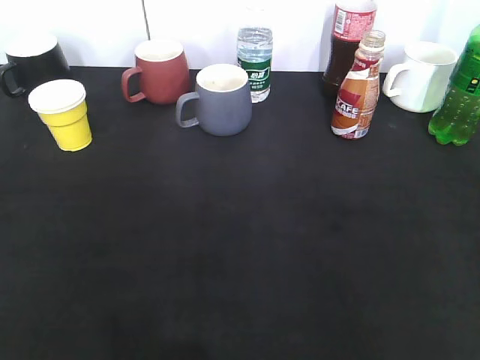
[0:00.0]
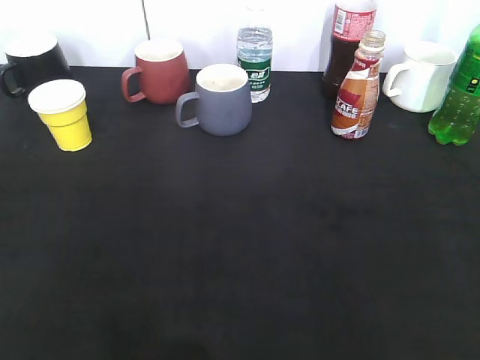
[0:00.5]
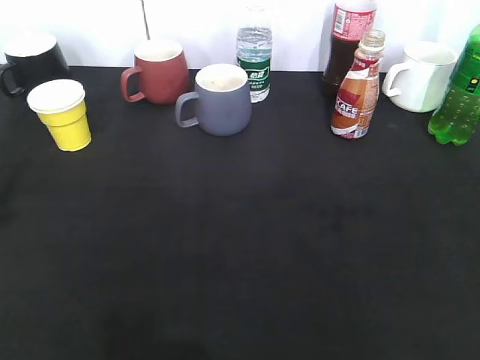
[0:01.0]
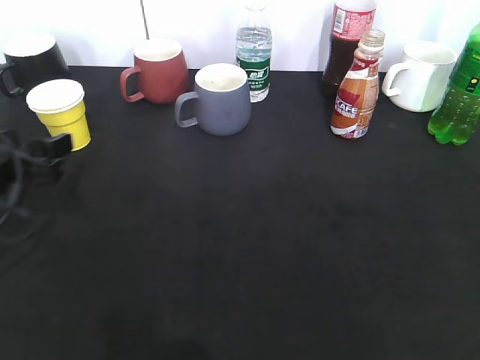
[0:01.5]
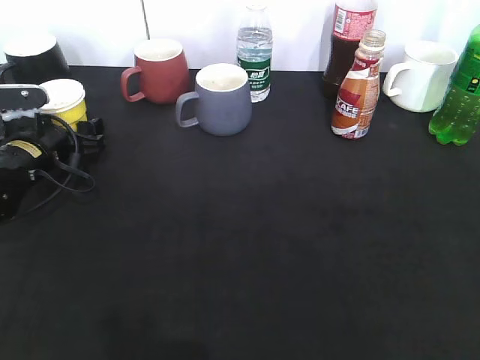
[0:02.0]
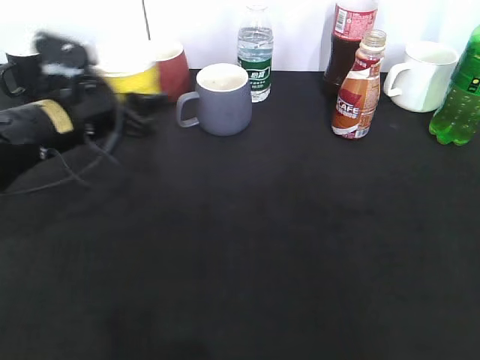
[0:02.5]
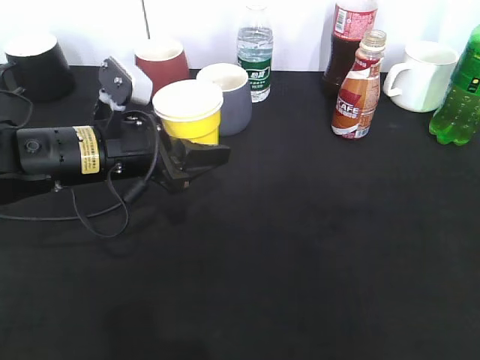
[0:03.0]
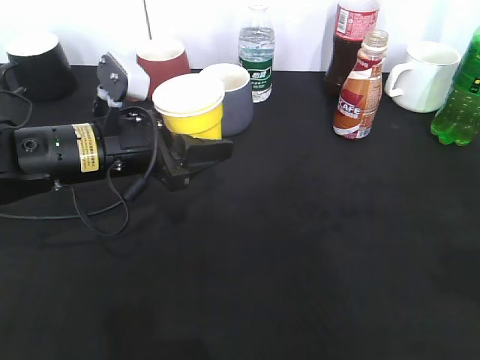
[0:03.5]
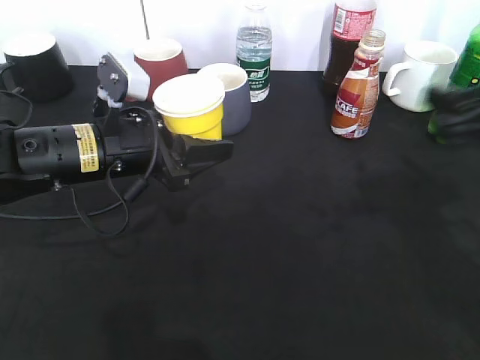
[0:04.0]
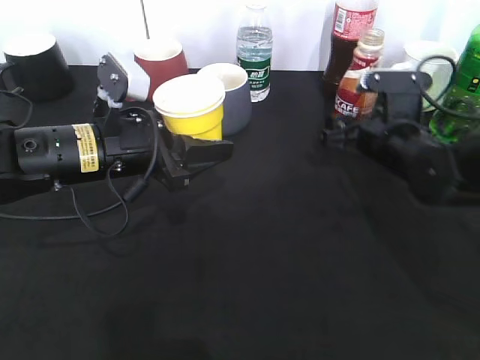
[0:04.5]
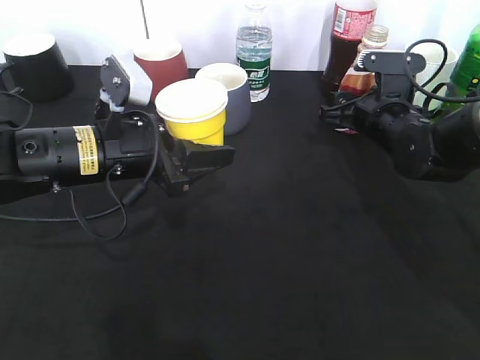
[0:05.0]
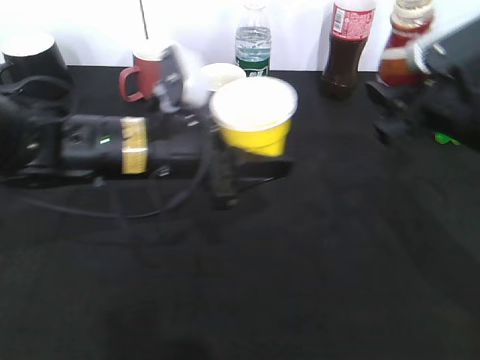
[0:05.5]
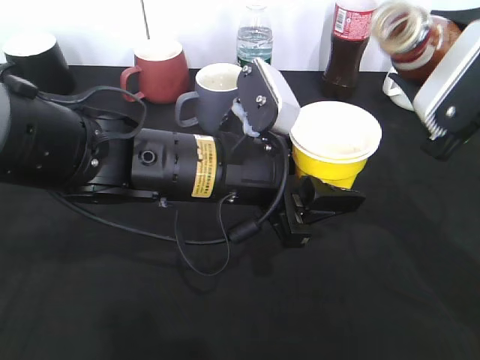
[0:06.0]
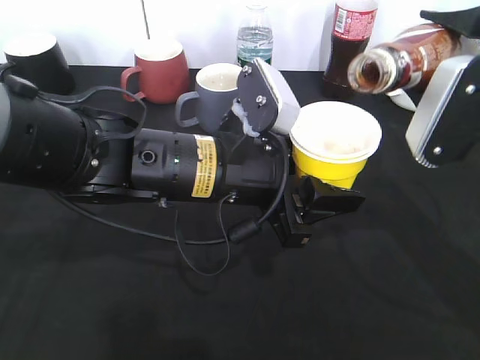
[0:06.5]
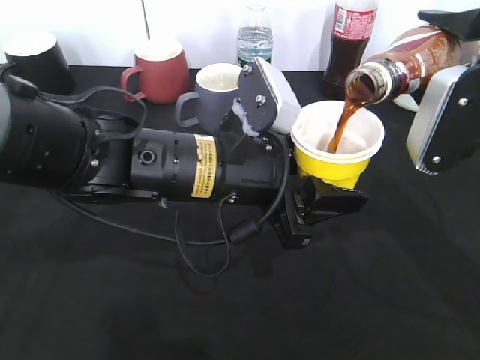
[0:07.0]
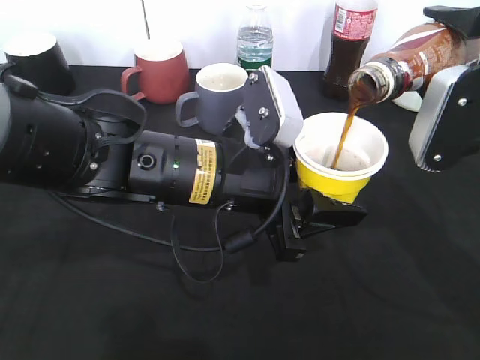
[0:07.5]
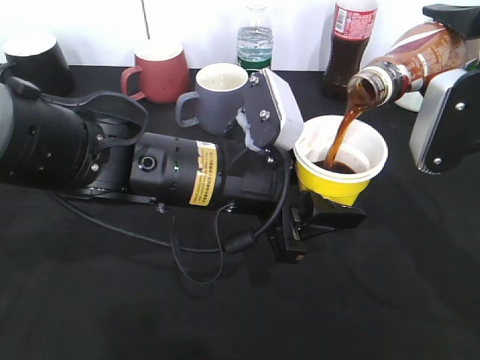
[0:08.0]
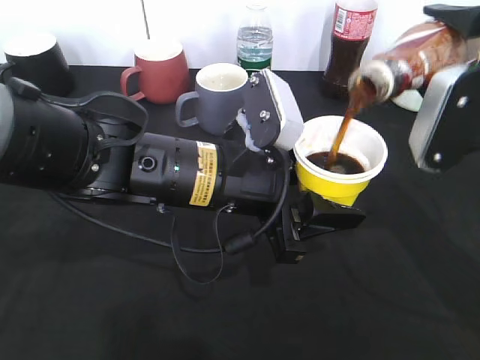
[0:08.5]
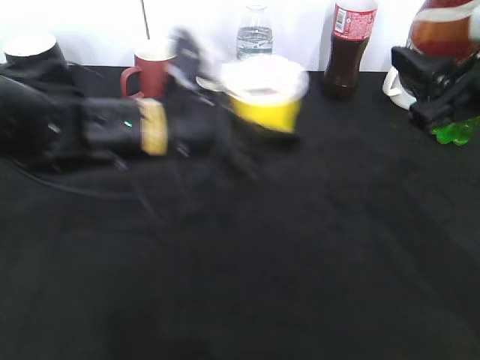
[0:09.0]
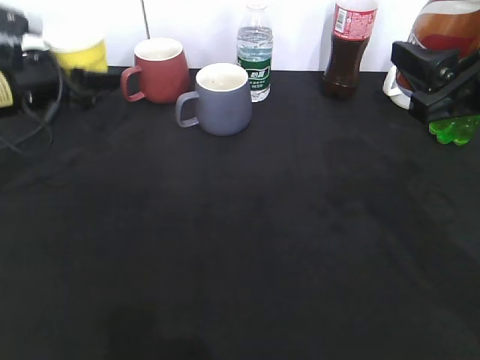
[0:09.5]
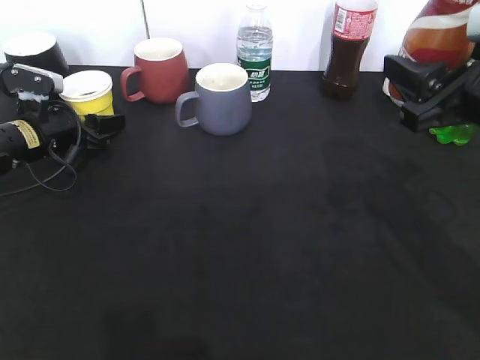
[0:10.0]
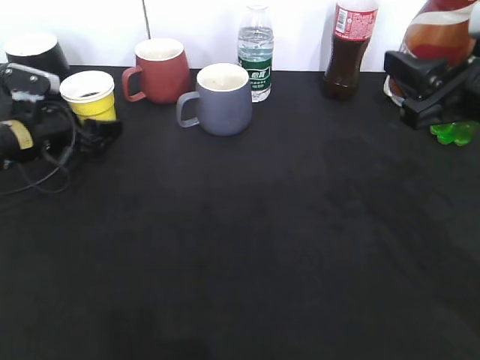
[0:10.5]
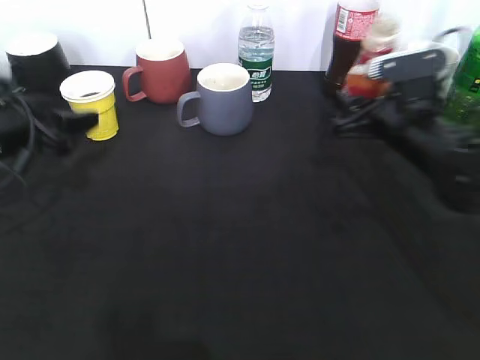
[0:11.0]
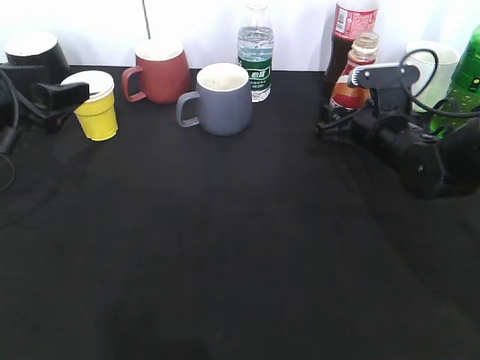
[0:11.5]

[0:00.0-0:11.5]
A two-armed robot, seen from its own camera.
Step, 0:01.0 to 0:02.0: Grasp the yellow paper cup with left gripper.
Step, 0:02.5 to 0:03.0: Lift the yellow paper cup with left gripper.
Step, 0:03.5 to 0:05.0: Grasp the bottle with coffee with right gripper.
Step, 0:05.5 to 0:08.5: Pour the coffee from bottle to cup with right gripper.
Step, 0:09.0 to 0:10.5: Place the yellow paper cup on the table with left gripper.
0:00.0 to 0:02.0: The left gripper goes about 40 cm forward and downward, and opens.
0:02.0 to 0:04.0: The right gripper is displaced forward by about 25 cm; the left gripper heads to the right, backward and upward, covering roughly 15 cm, and closes.
0:04.0 to 0:06.0: The left gripper is displaced to the right and backward by some 15 cm. The right gripper reaches roughly 15 cm forward, then returns, and closes its fingers.
0:07.5 to 0:09.5: The left gripper goes roughly 30 cm to the left and forward.
0:09.5 to 0:11.5: The right gripper moves downward and forward, roughly 20 cm, and opens up. Meanwhile the left gripper moves backward, approximately 10 cm, and travels downward and back again, approximately 10 cm each way.

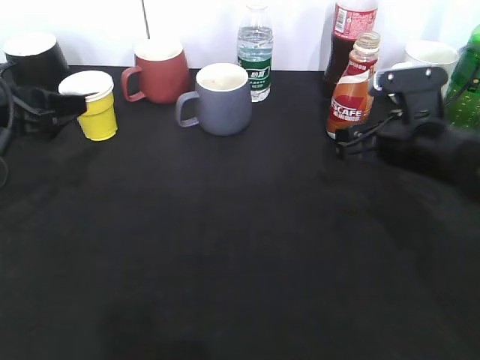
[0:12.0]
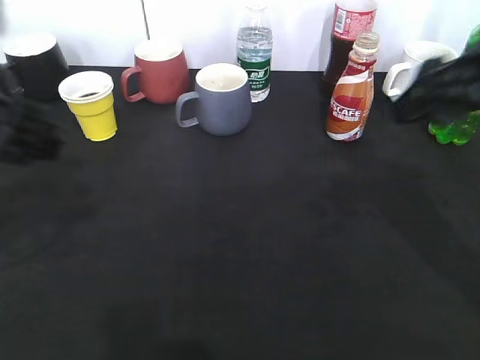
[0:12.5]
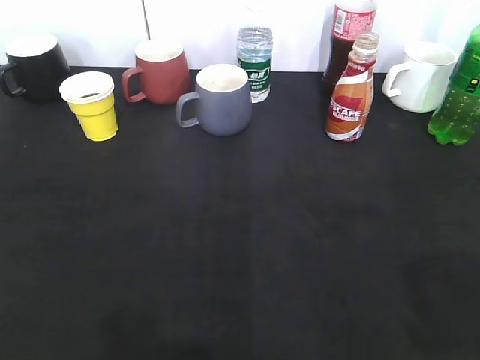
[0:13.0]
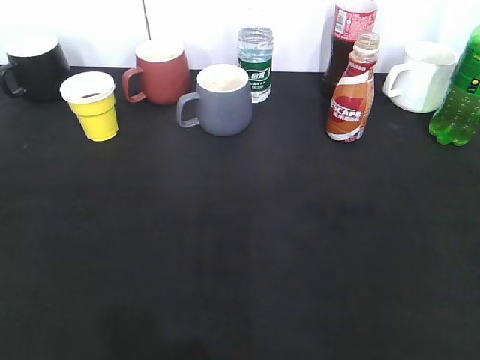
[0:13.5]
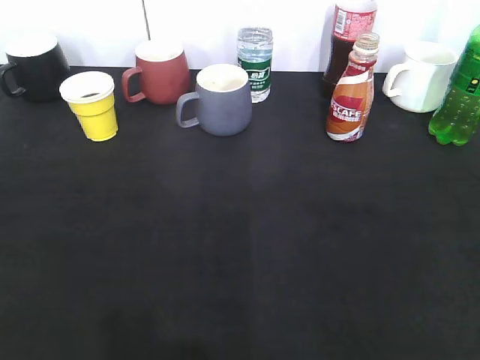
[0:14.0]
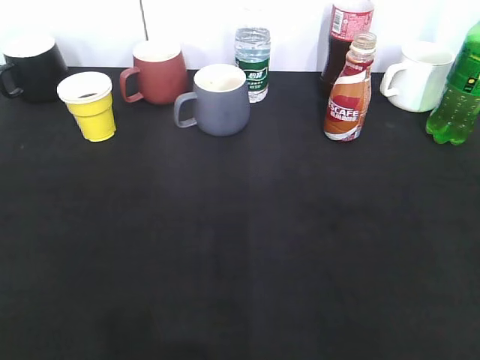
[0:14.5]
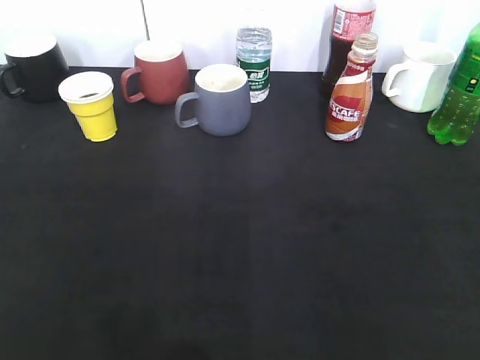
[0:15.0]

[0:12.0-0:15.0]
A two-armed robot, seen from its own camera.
0:12.0 to 0:13.5: The right gripper moves backward and upward, approximately 35 cm; the left gripper goes approximately 30 cm backward.
0:13.5 to 0:15.0: The left gripper closes.
